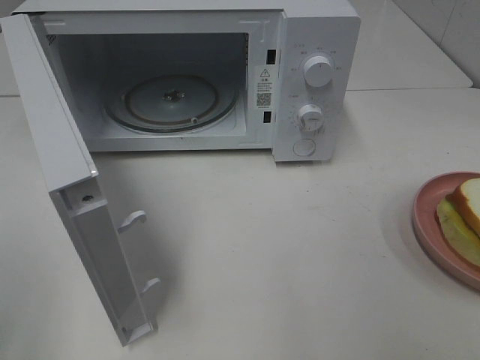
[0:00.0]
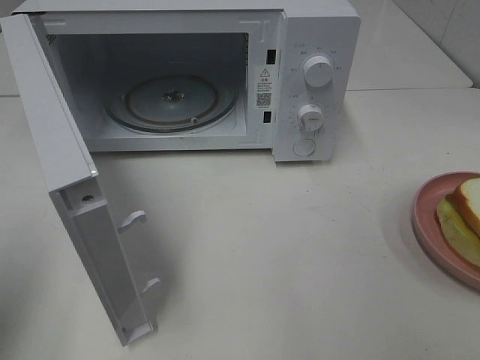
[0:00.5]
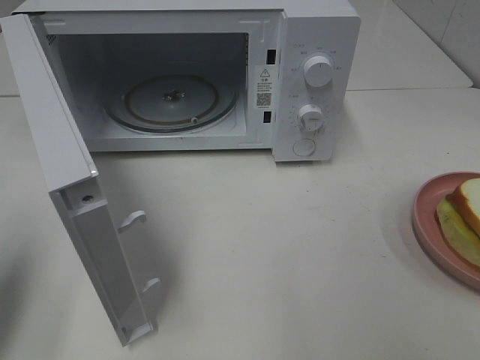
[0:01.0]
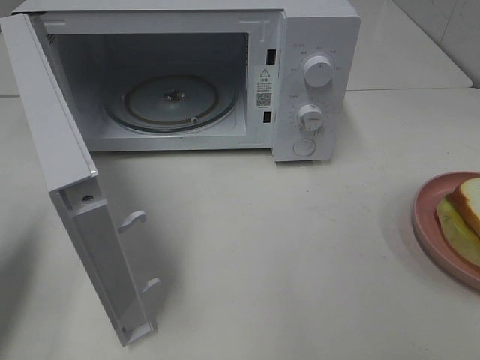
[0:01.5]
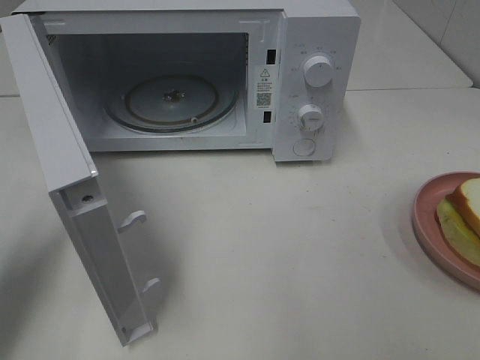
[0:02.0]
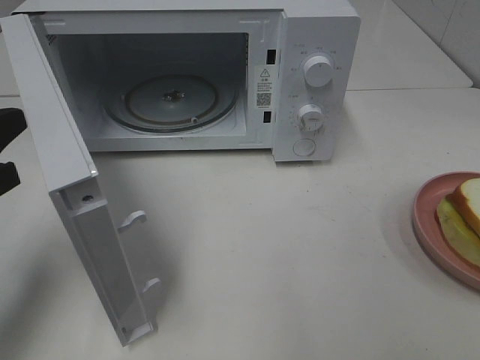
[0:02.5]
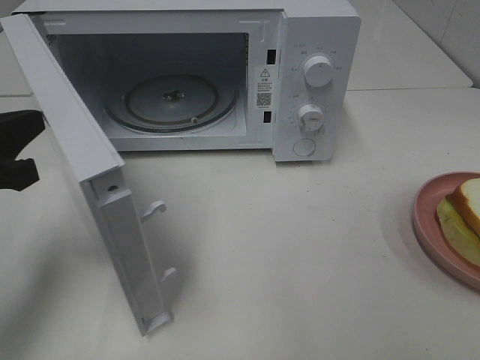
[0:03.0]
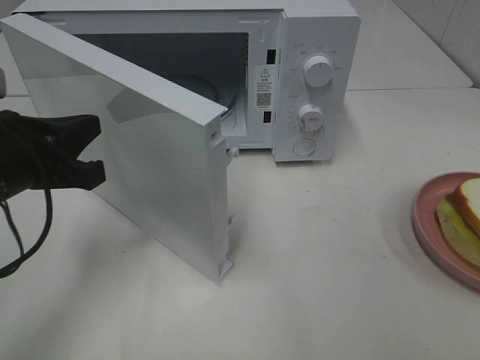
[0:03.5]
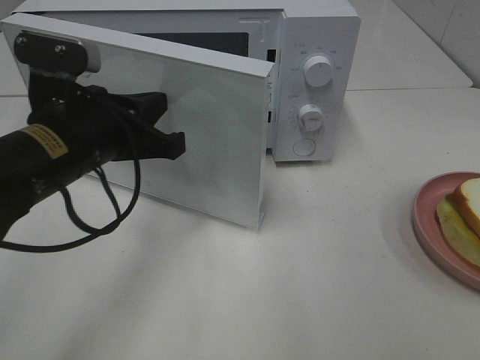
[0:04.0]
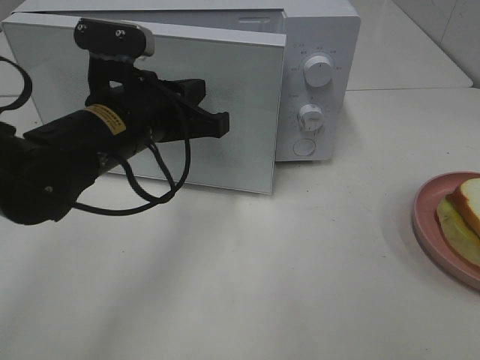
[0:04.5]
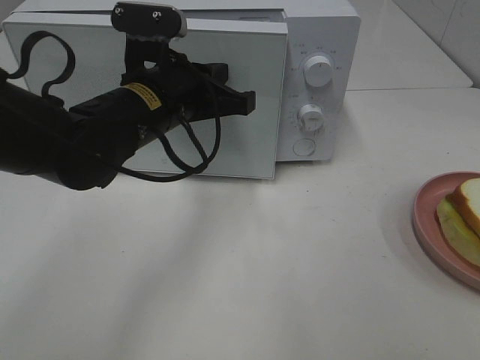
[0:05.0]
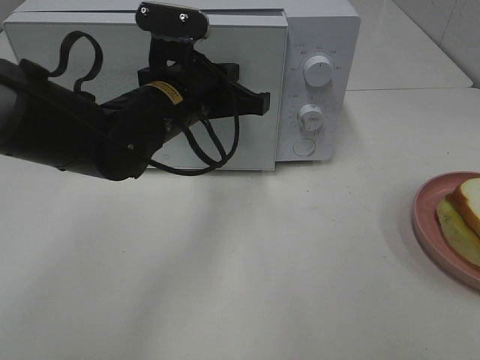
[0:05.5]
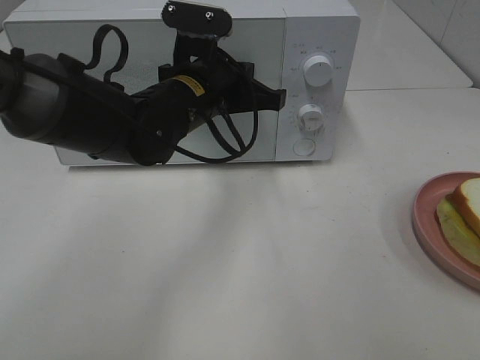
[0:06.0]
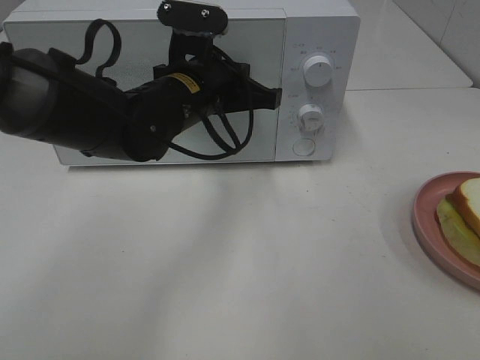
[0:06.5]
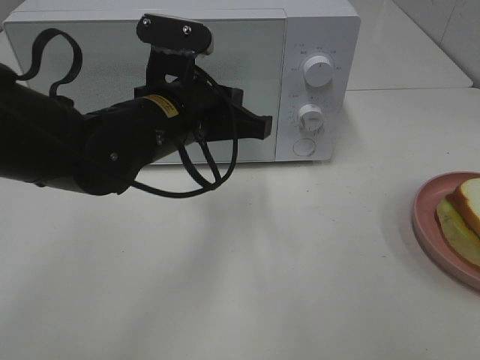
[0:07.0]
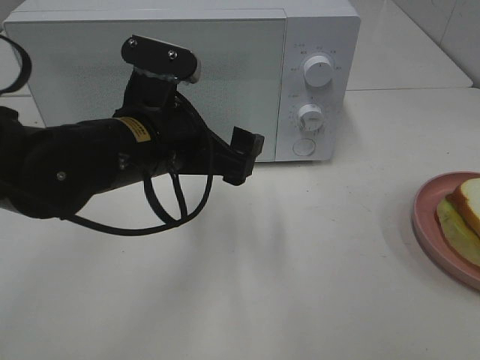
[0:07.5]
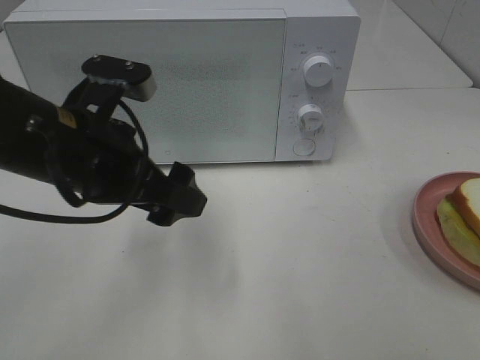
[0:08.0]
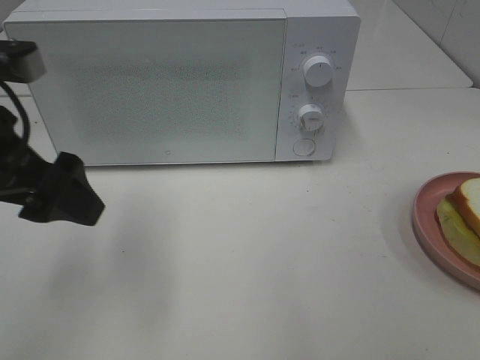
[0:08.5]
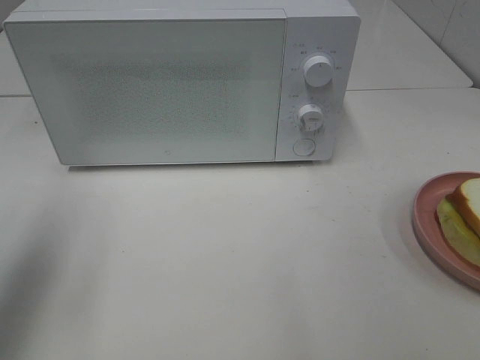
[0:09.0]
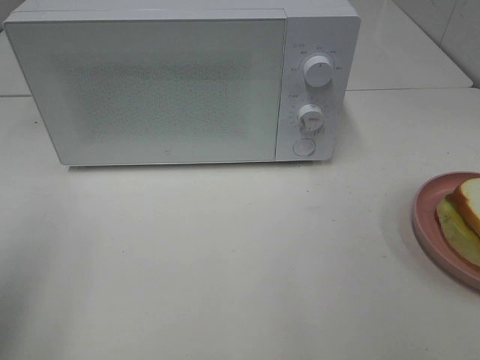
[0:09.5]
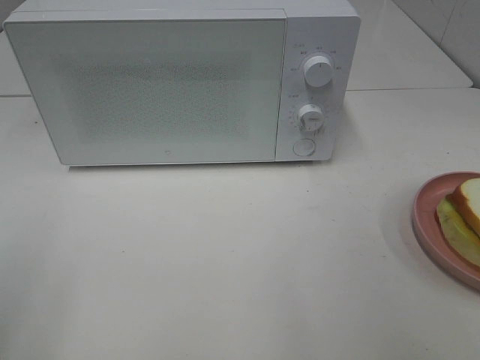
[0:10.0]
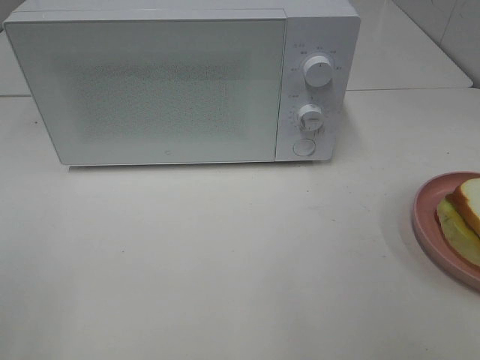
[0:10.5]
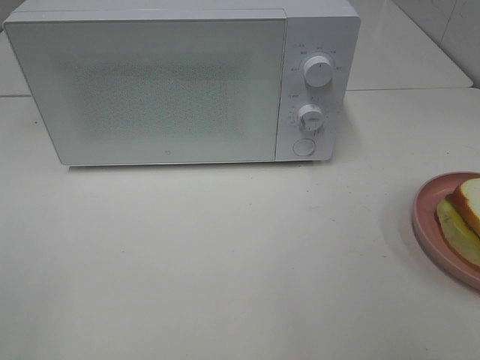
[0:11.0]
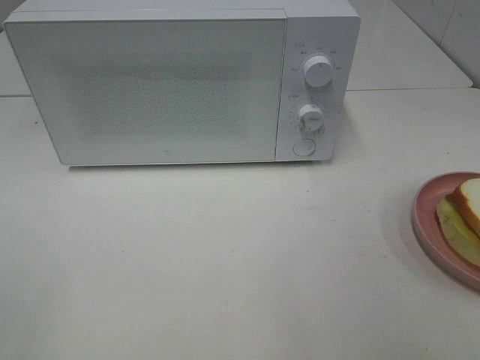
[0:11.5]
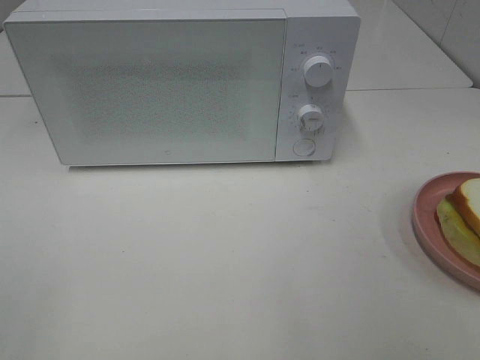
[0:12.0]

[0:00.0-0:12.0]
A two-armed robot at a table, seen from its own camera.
Task of the whole recording: Heat Sandwich.
Step, 0.0 to 7.0 s: Left hand: close the microwave door.
0.0 to 2.0 s: The left gripper goes approximately 20 cm forward and downward, and closes its fingers.
2.0 to 4.0 s: The left gripper moves to the right, about 15 cm.
4.0 to 6.0 s: The left gripper is displaced to the right and forward by about 15 cm.
6.0 to 8.0 s: The left gripper shifts approximately 15 cm backward and to the left, and opens up.
8.0 to 10.0 s: The left gripper heads to the left and backward, covering roughly 25 cm.

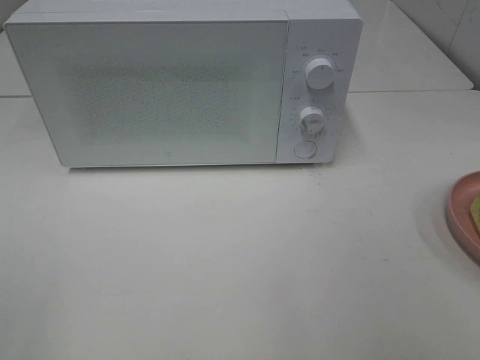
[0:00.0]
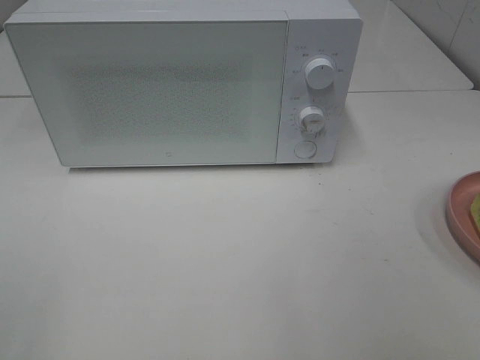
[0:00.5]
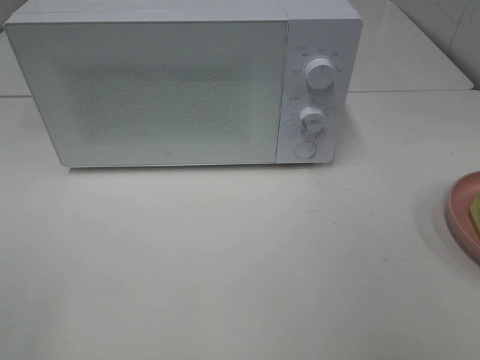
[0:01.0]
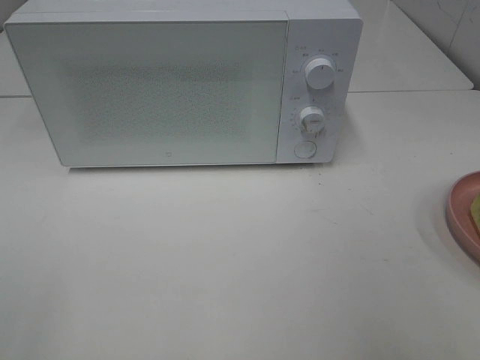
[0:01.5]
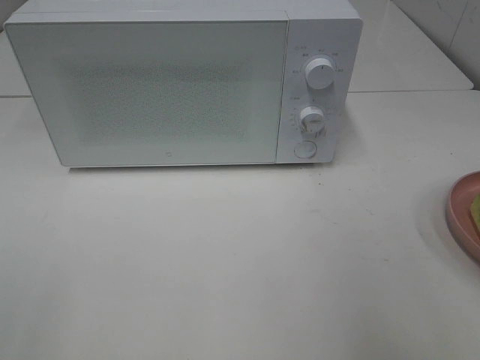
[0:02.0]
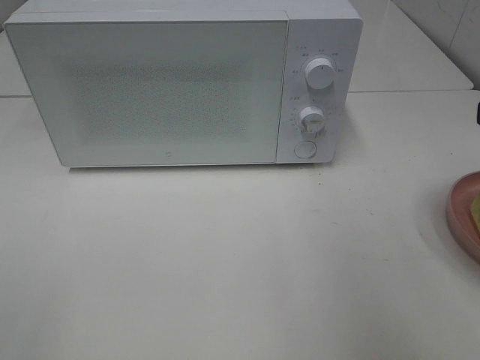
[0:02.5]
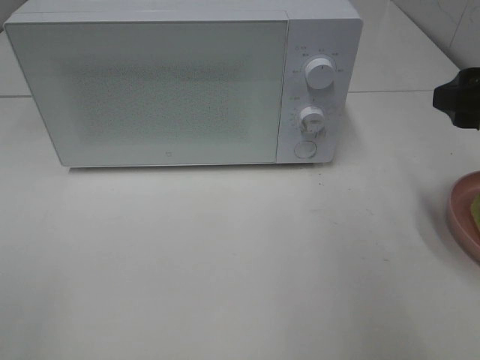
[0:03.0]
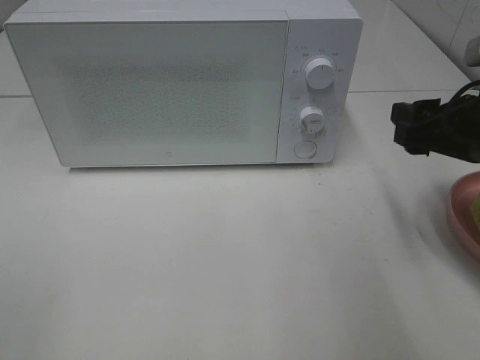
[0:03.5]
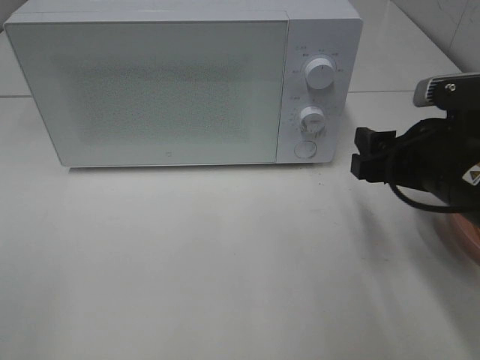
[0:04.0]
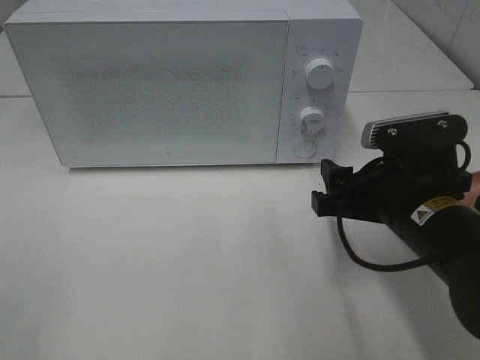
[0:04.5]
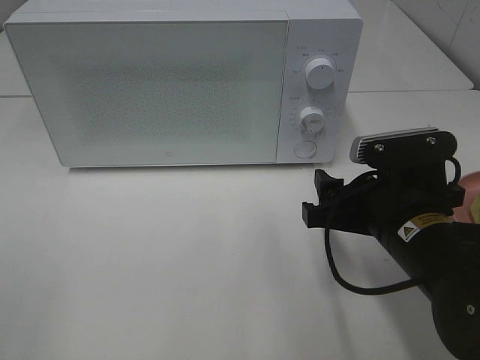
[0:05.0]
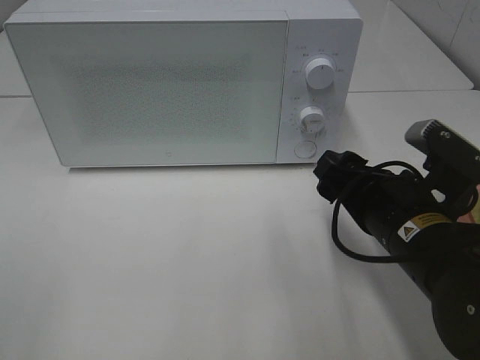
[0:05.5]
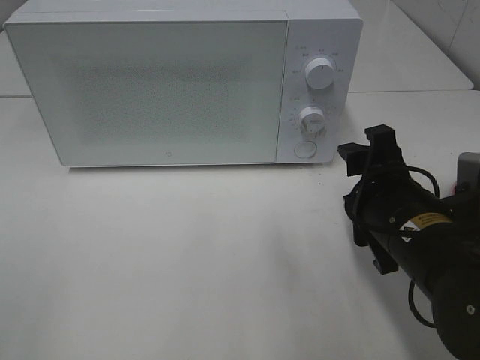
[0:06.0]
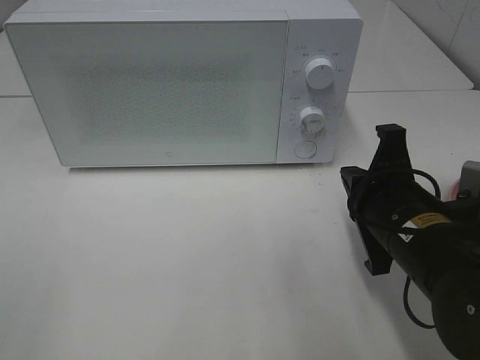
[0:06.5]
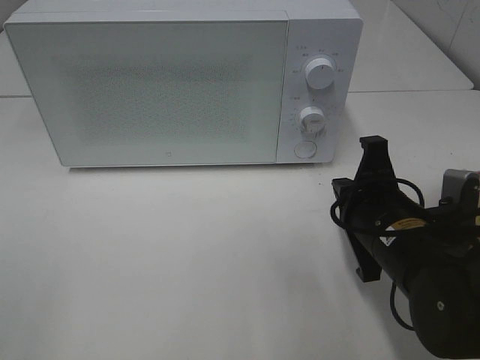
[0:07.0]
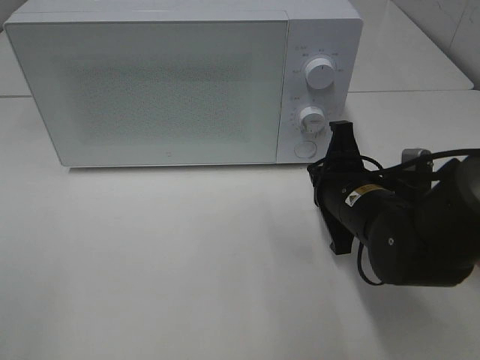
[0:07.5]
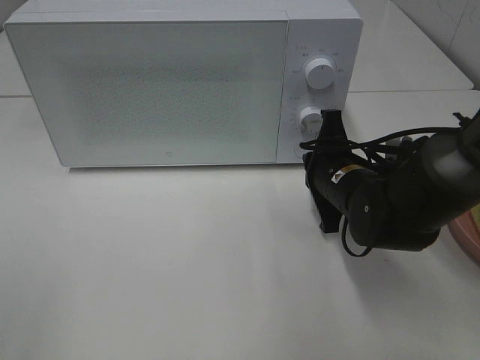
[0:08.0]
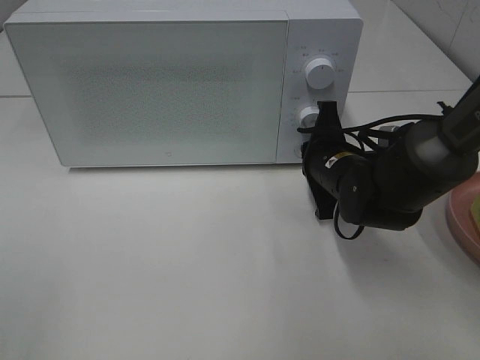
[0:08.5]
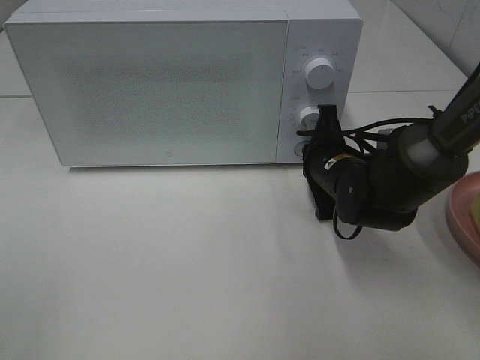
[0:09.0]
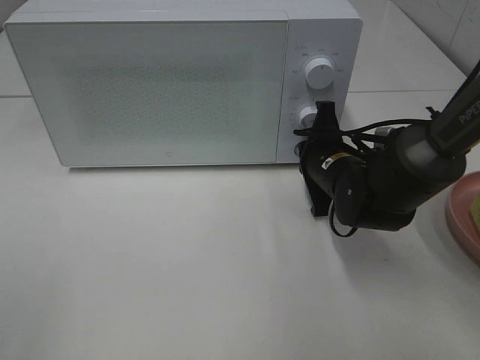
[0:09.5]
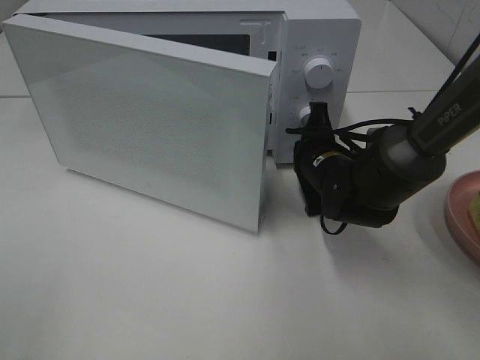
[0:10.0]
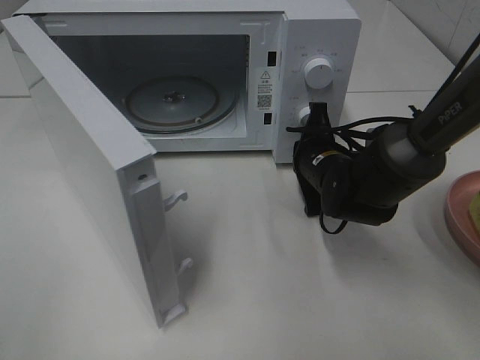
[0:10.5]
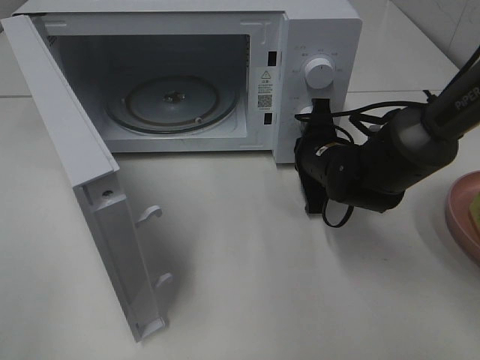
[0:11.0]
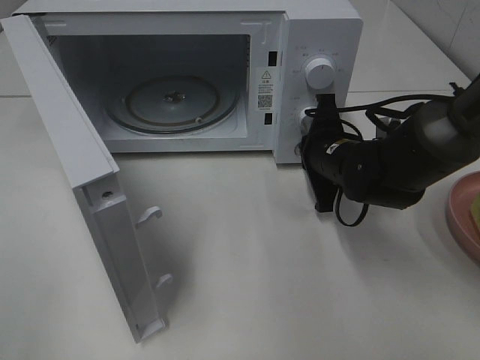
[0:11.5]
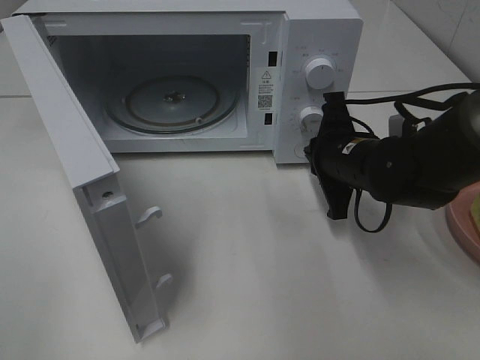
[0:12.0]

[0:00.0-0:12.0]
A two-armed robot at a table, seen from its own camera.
Task of the whole recording: Heat Sandwich.
Step, 0.0 to 11.5 s: Right hand: press the switch.
2.0 to 4.0 s: The right gripper goes roughly 20 cm downward, forward and to the left.
4.0 to 6.0 s: The right gripper shifts by roughly 5 cm.
6.0 to 8.0 s: The right gripper goes roughly 10 cm forward, and closes up.
8.0 to 10.0 s: The right gripper is displaced forward by some 5 cm.
10.0 to 12.0 s: The right gripper ends up approximately 5 cm from where it was.

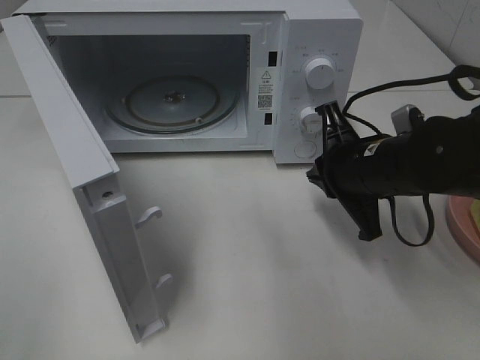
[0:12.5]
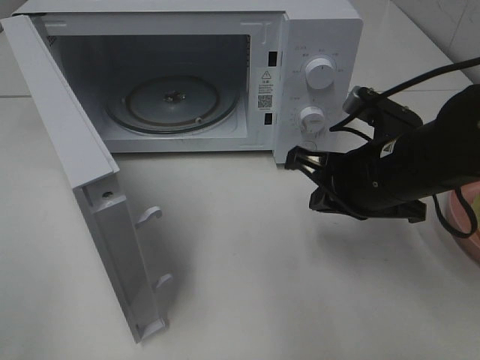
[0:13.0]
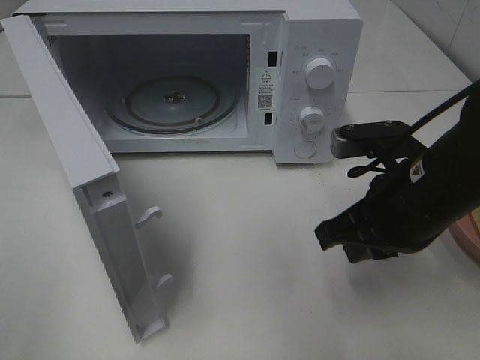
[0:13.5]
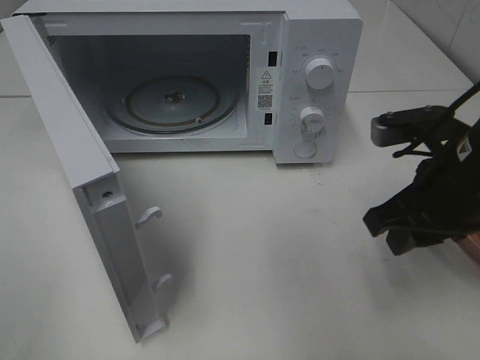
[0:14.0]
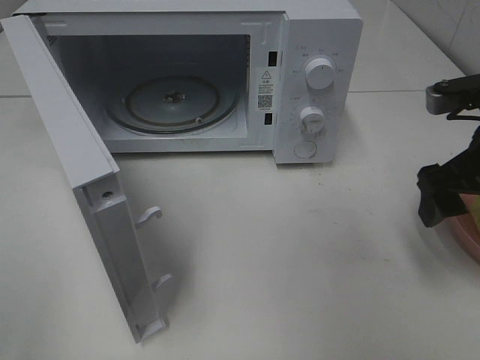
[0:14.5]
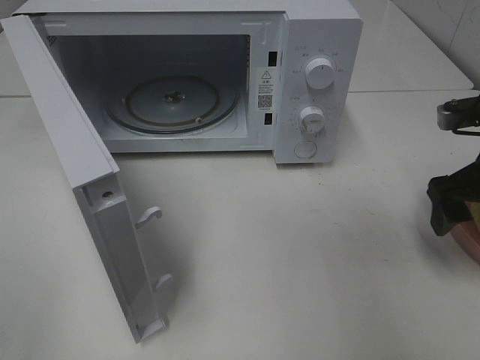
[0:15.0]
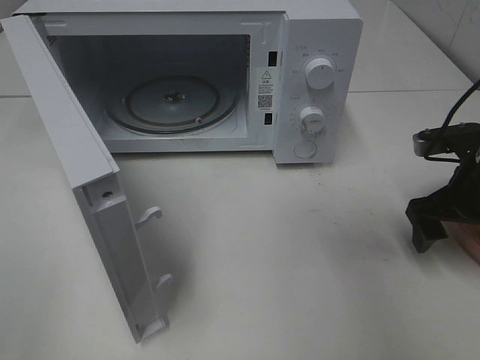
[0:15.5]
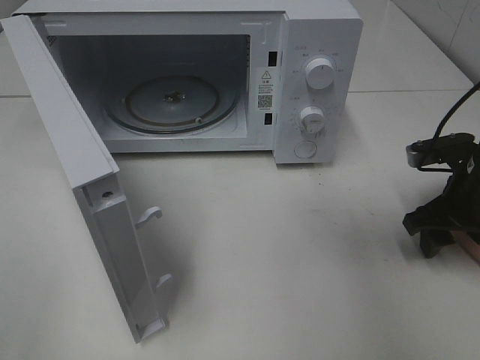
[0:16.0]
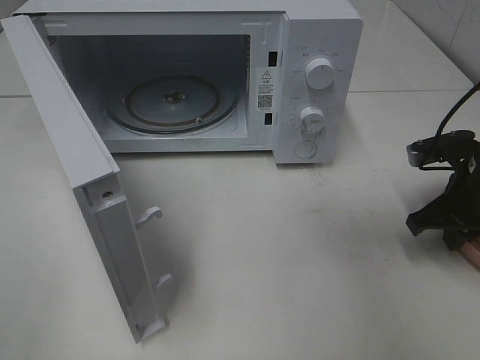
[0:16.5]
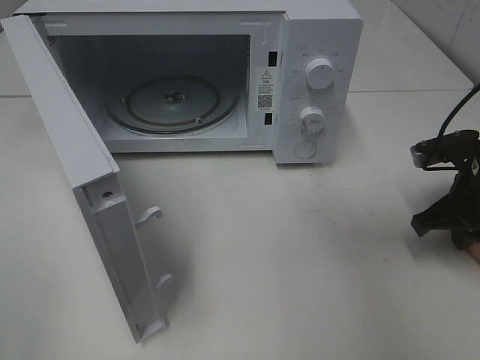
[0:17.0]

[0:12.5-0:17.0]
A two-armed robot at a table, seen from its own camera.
Task of the whole recording: Heat Sandwich.
12.5 to 14.5 s: The right gripper is displaced to the right and upward by approximately 10 cm, and opens.
14.5 to 17.0 s: The right gripper shifts approximately 10 cm downward, and closes up.
